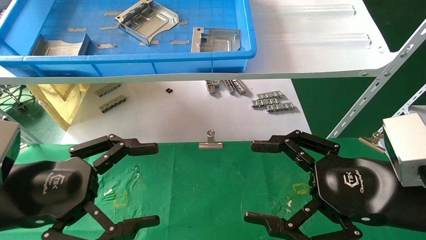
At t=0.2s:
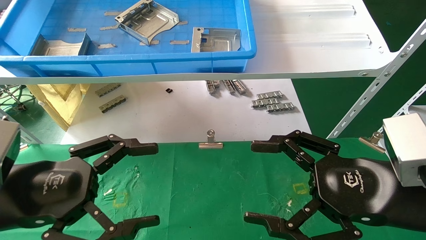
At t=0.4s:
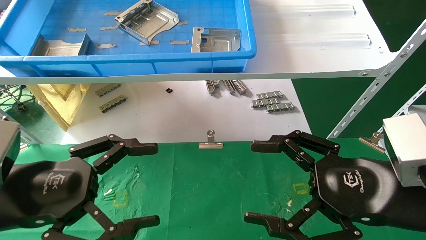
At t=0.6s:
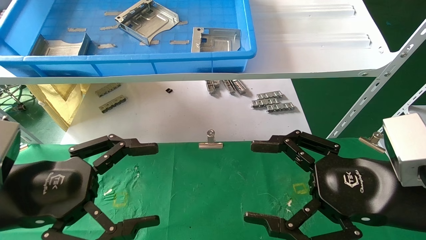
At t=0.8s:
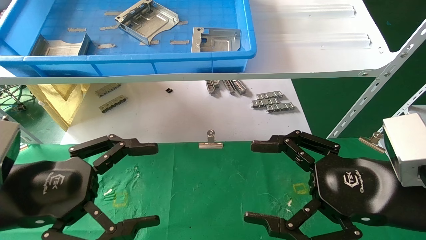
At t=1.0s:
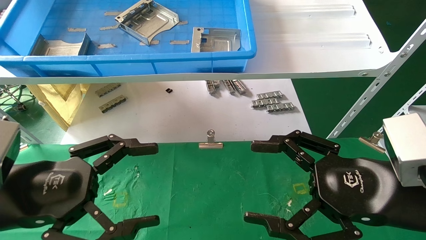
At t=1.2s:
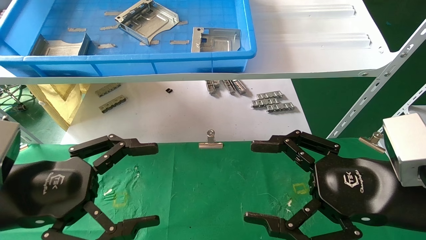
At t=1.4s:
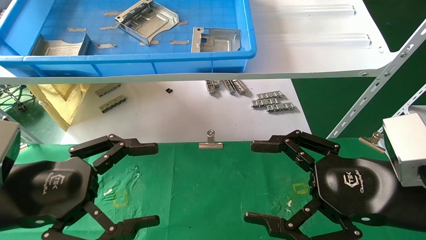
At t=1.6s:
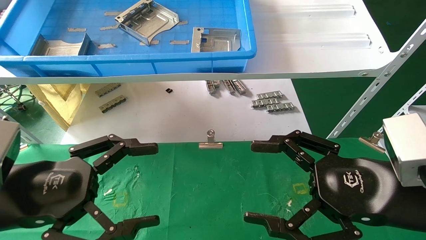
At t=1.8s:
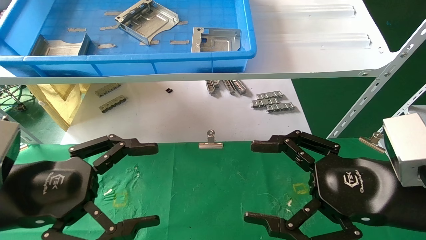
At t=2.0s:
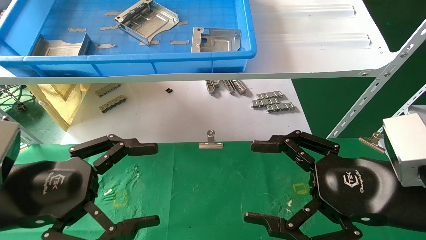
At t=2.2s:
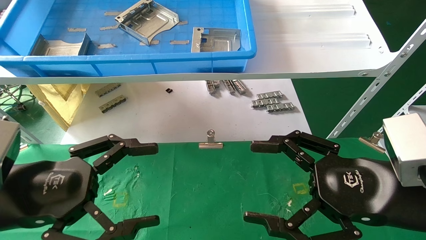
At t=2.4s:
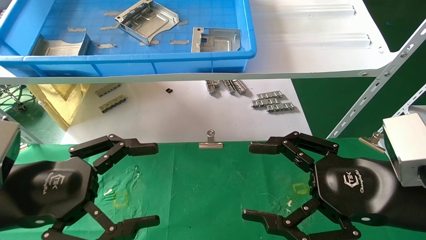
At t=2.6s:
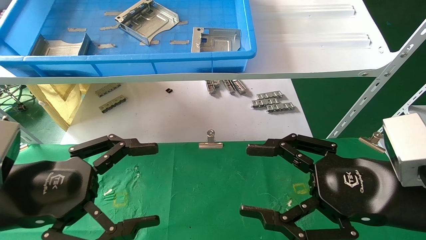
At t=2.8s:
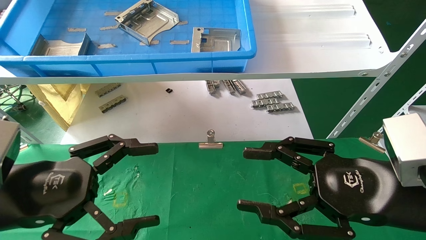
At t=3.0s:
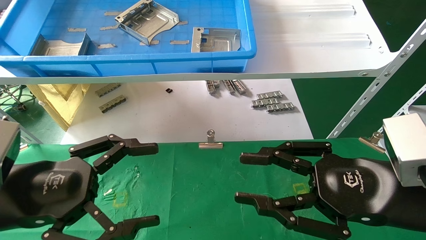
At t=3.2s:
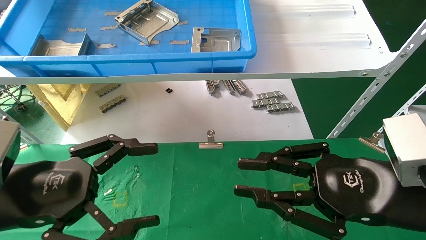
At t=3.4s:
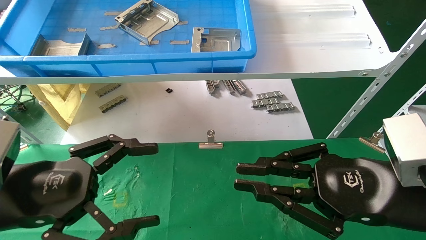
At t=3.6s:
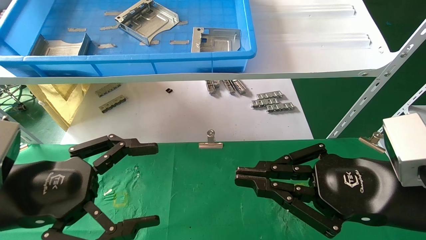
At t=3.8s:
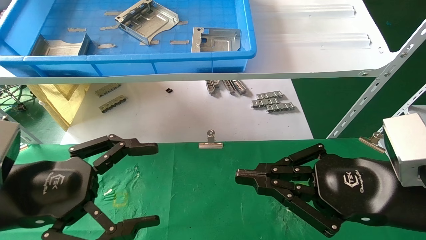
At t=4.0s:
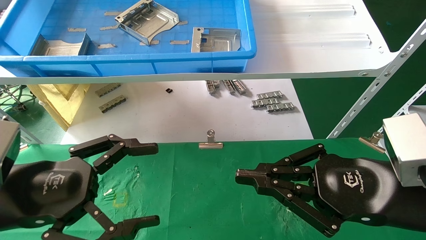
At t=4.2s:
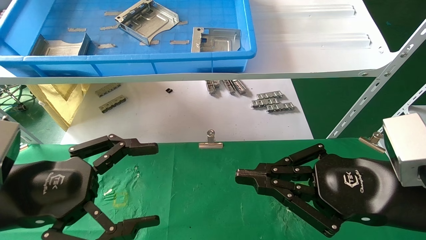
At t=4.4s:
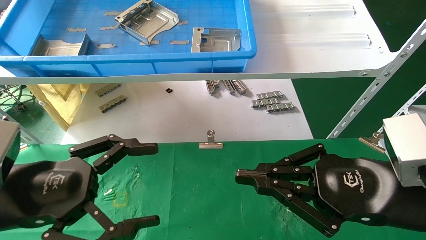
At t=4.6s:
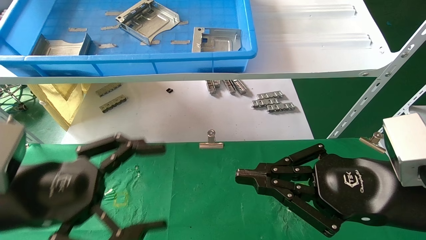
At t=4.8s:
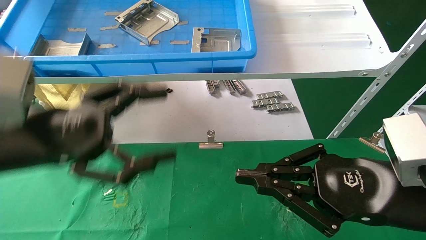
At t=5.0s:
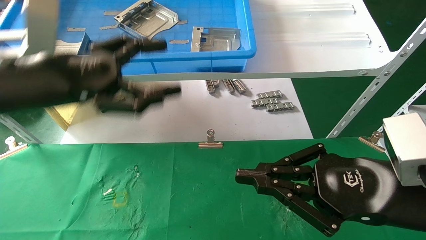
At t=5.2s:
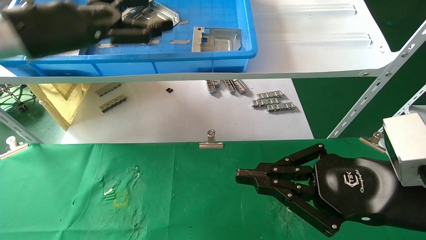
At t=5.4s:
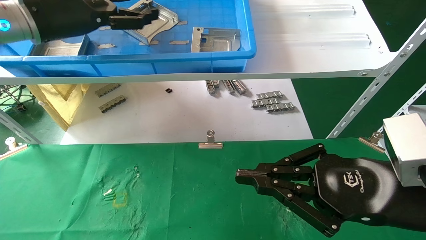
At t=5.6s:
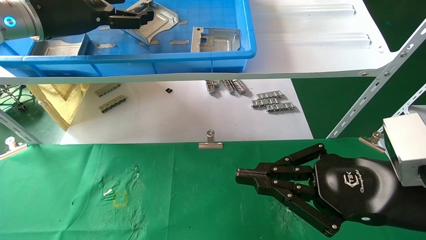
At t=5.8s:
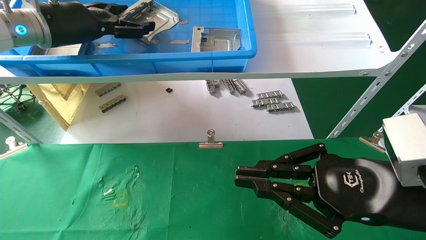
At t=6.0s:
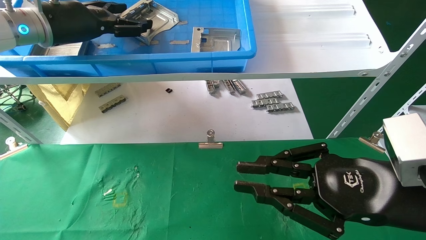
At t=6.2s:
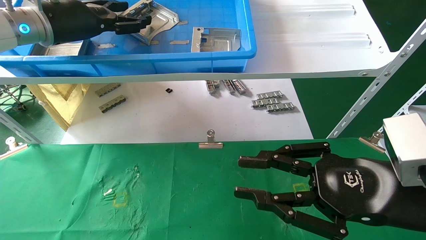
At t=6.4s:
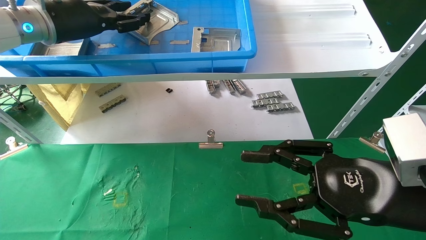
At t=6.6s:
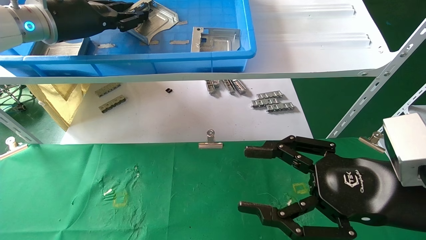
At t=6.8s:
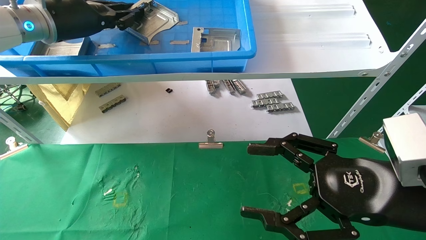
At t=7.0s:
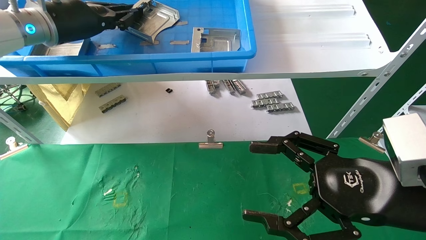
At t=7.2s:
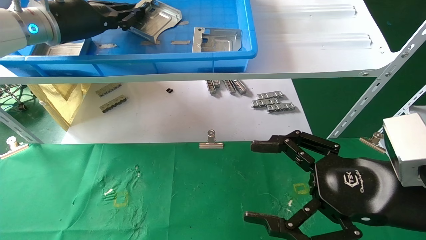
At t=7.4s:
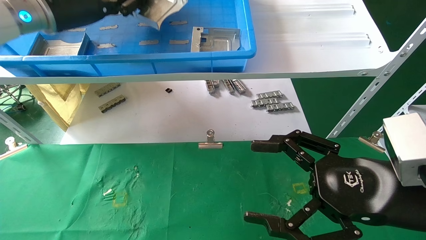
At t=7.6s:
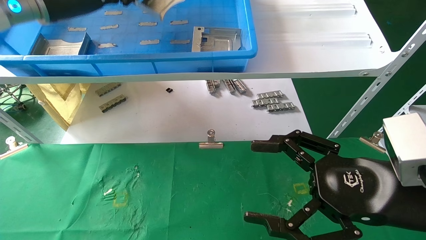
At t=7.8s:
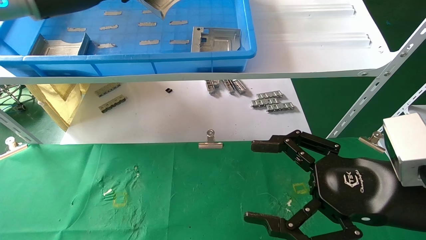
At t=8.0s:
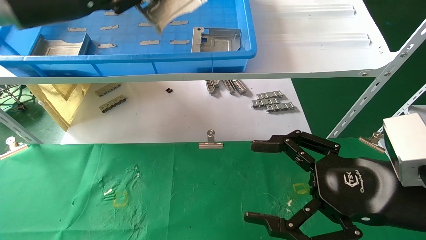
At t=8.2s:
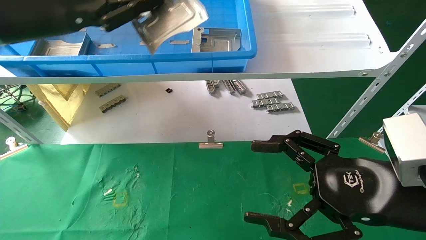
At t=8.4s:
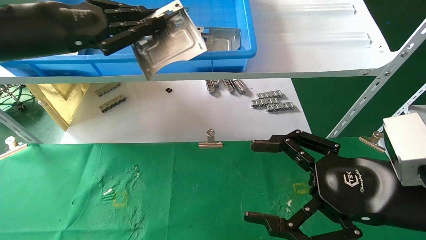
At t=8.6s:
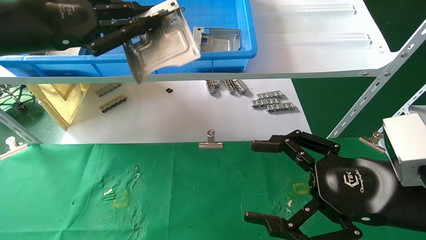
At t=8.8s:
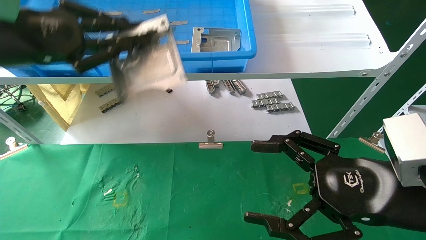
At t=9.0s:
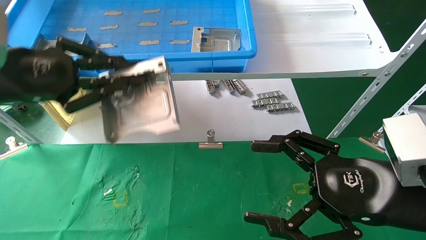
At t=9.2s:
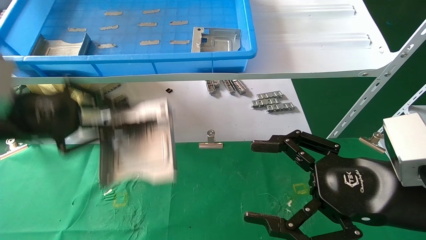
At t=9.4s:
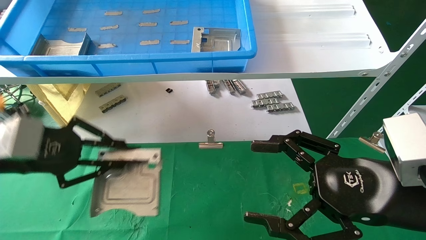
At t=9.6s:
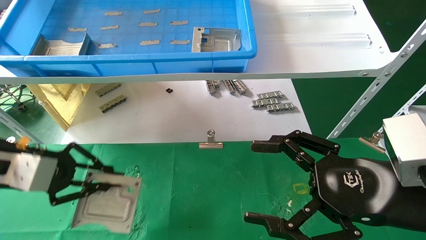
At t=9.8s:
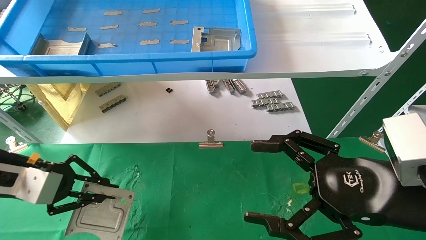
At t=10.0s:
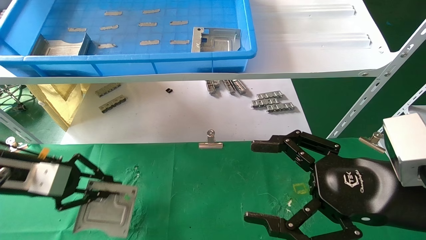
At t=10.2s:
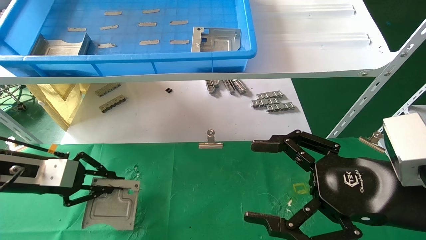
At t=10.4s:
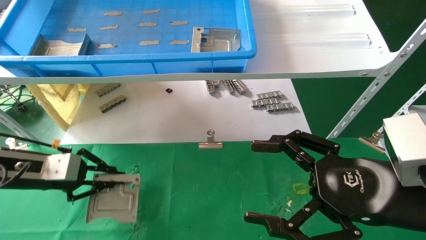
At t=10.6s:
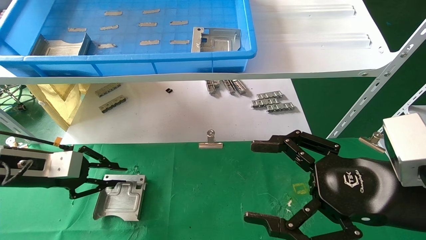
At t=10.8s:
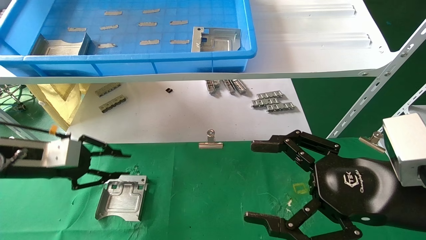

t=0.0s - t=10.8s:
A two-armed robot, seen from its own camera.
Task of the whole recording: use the mechanical arm to pick up the parts and place them on the table.
Step, t=3.6s - t=7.8s: Pick up the hard drive bracket from the feeding area.
Step, t=8.0s - t=10.6s: Place the hard drive bracket into the box.
t=0.0s - t=1.6s: Neither gripper changes place.
t=1.6s - t=3.0s: The right gripper closes its fingers.
t=3.0s - t=4.6s: The right gripper closes its fingers.
t=4.6s - t=6.2s: The left gripper heads forward and upward, covering roughly 25 cm.
t=6.2s - t=7.8s: The left gripper ends up approximately 5 cm from where it was, and closes; the right gripper opens up.
t=7.8s - t=9.2s: The left gripper moves downward and backward, about 20 cm.
t=9.2s - t=10.8s: The left gripper goes some 15 cm downward and forward.

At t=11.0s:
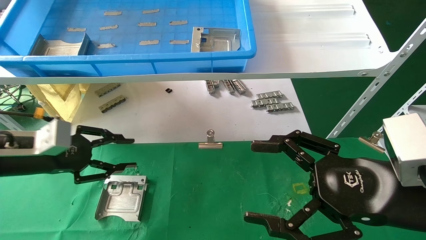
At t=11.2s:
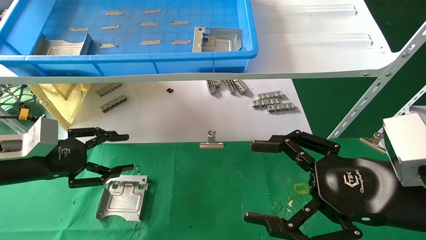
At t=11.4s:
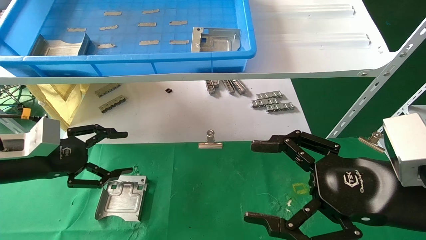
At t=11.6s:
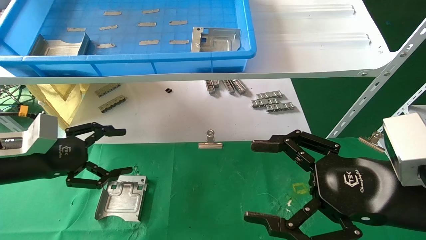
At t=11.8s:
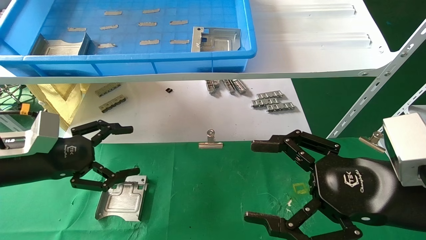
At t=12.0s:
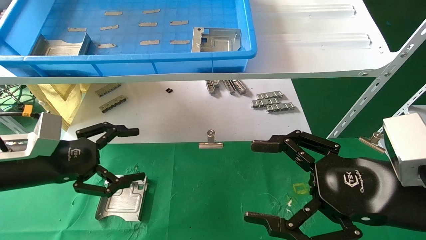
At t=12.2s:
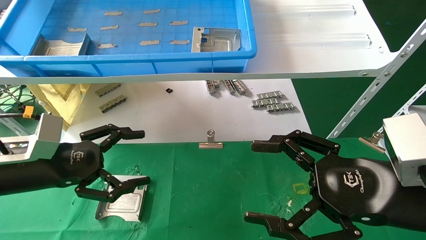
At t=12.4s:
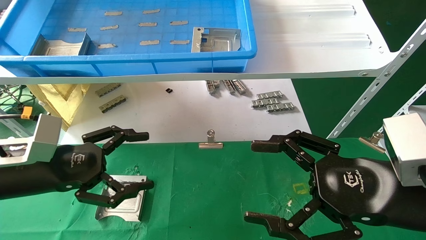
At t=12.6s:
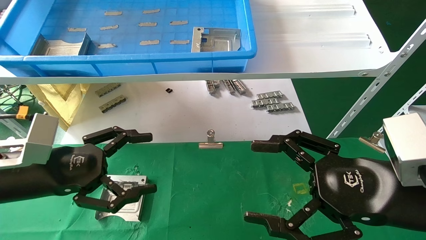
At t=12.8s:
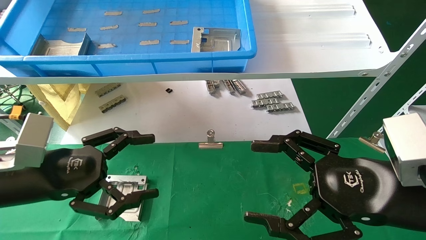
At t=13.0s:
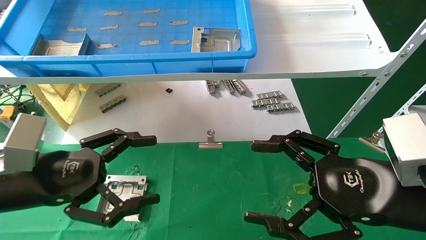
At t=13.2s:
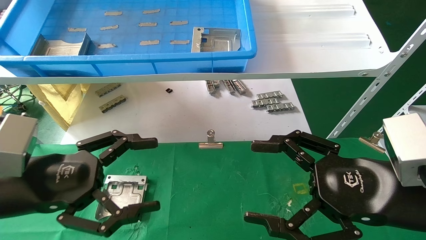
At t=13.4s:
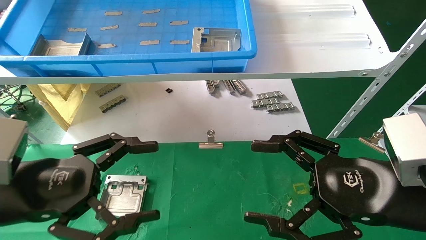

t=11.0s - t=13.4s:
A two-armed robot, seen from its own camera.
Task of the whole recording: use the mechanical arm to pick up the parts and place them on the table.
t=11.0s - t=12.2s: The left gripper shifts by about 5 cm, and opens its fingers.
t=12.2s - t=13.4s: The left gripper is displaced backward by approximately 10 cm.
